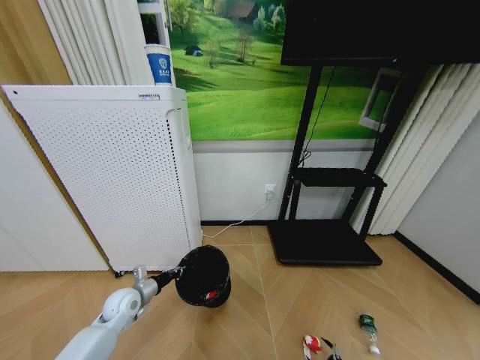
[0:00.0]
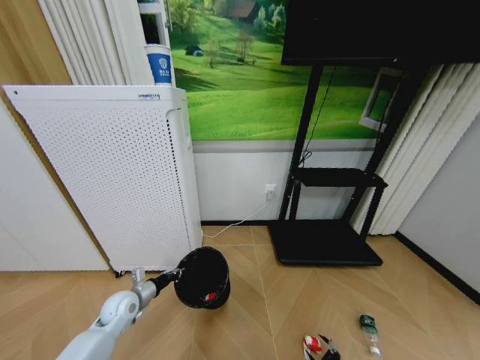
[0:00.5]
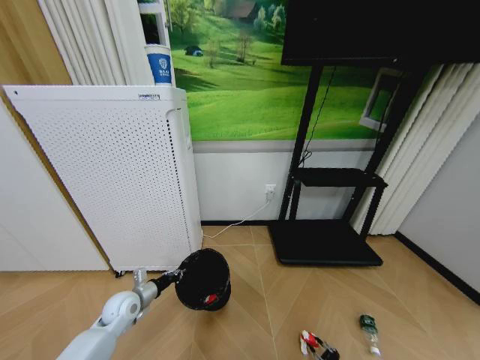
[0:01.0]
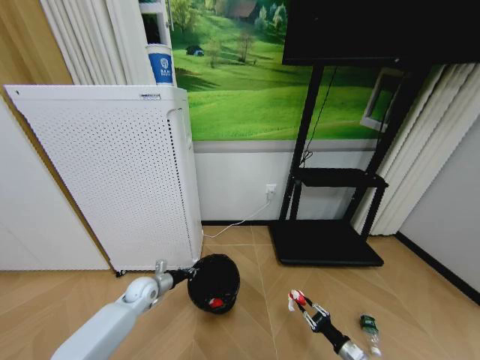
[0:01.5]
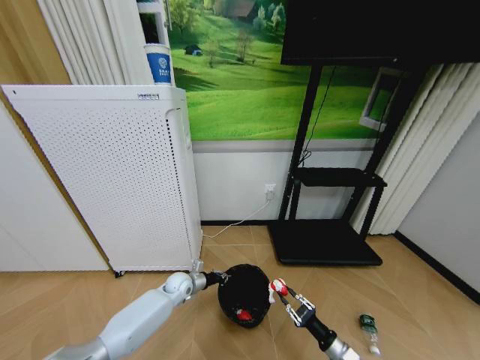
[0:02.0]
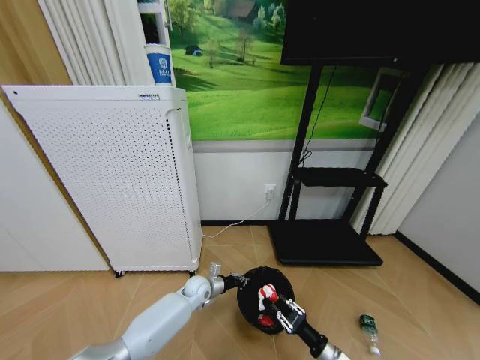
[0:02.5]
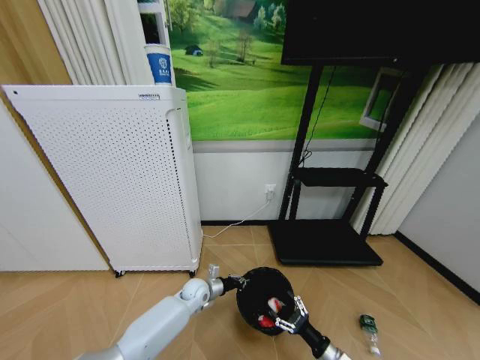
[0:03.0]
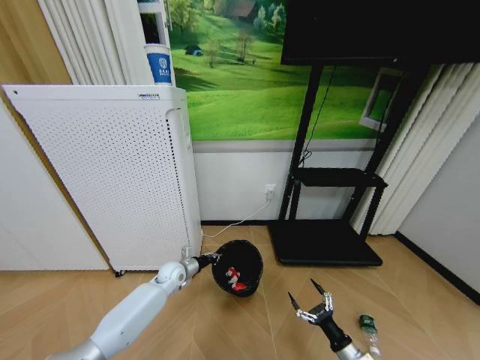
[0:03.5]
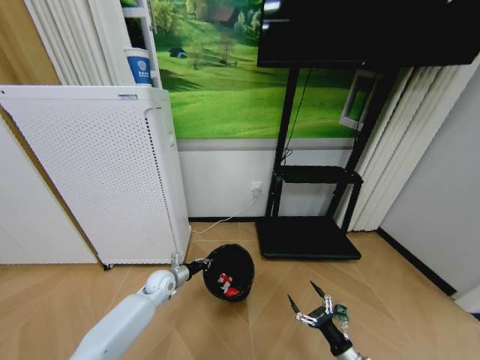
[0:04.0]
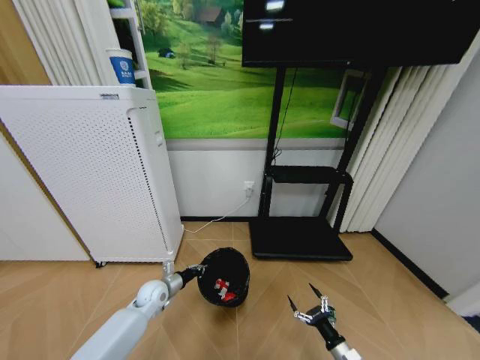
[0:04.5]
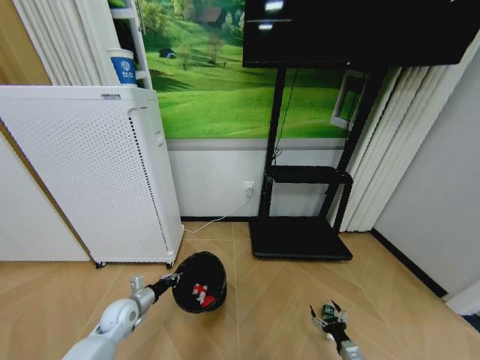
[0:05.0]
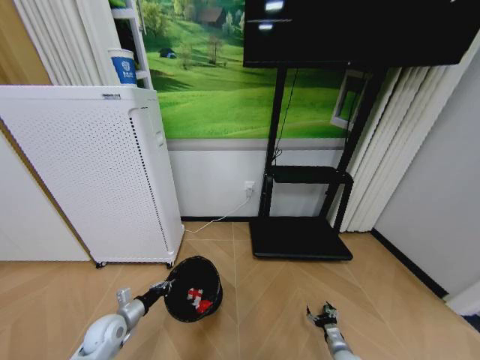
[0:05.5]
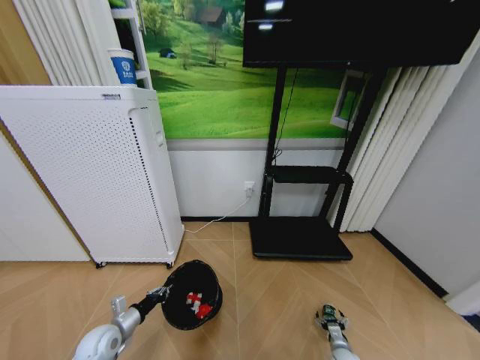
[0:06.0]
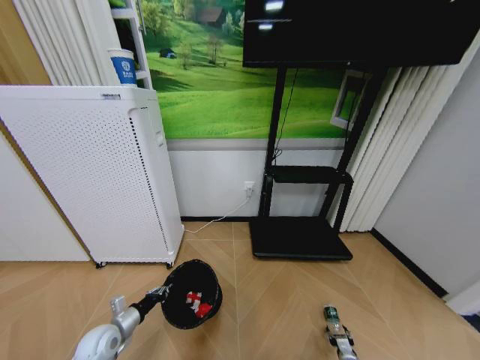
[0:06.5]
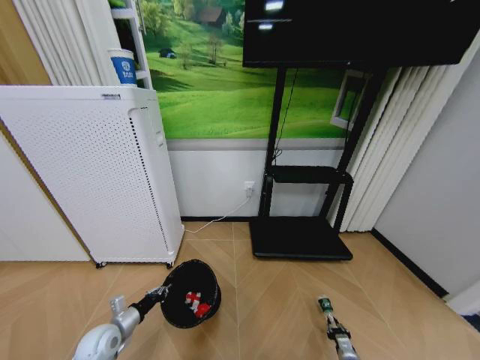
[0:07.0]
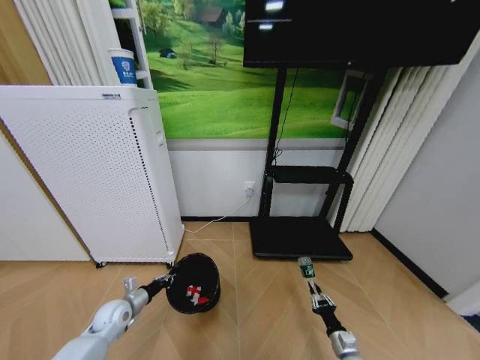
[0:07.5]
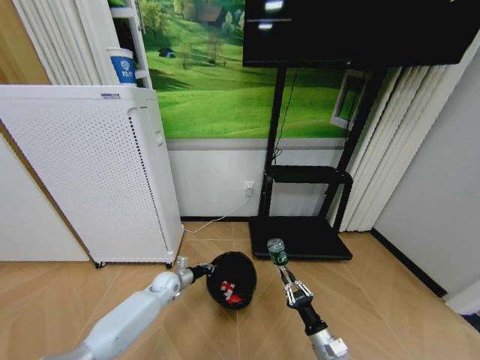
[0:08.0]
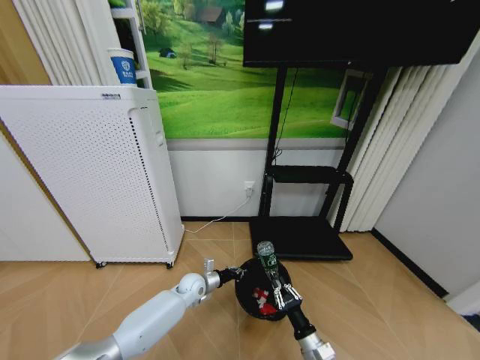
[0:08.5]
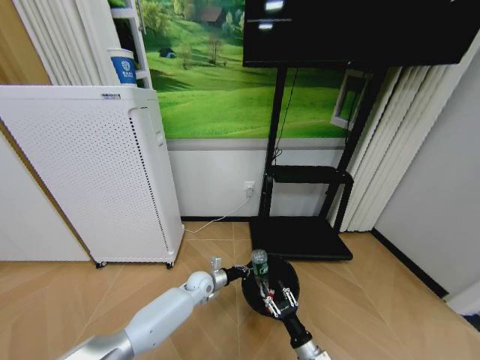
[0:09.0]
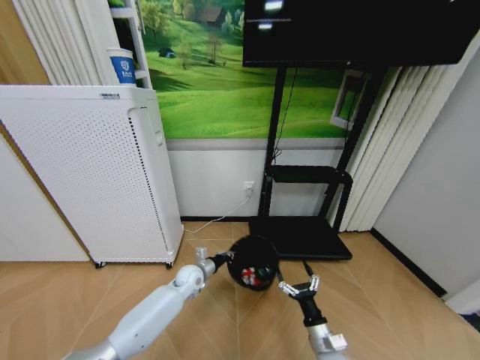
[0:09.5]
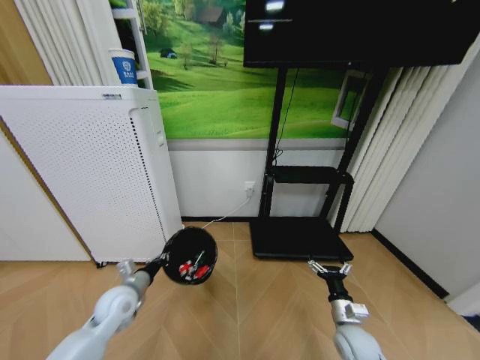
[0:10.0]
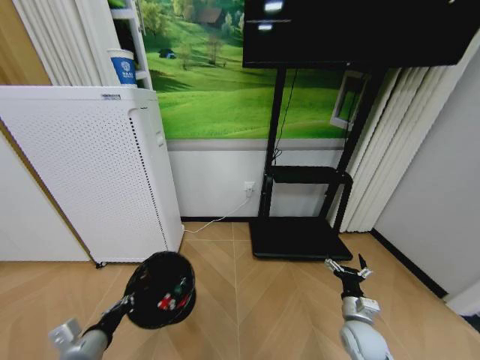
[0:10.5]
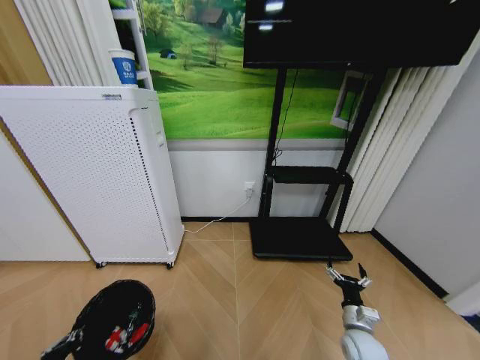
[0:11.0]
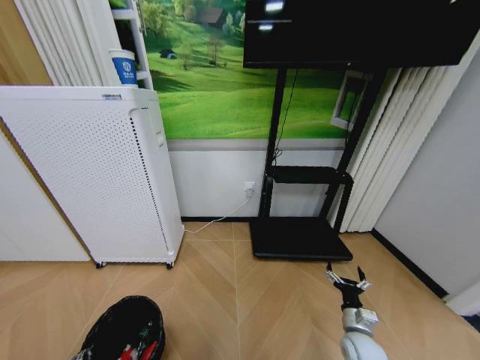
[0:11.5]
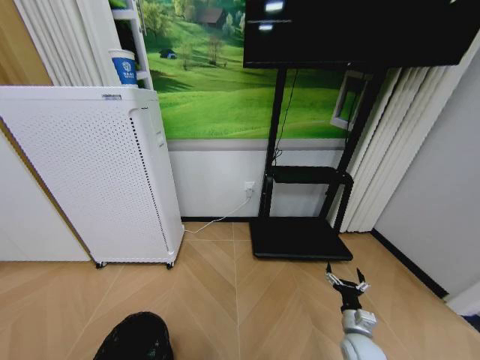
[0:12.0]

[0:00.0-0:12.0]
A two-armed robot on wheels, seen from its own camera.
Task of the whole recording: Pick up the trash bin and place the garbage on the floor into it.
0:00.0 to 0:02.0: The right gripper is displaced upward, to the left and forward by approximately 20 cm, and closes up. The left gripper is displaced to the right, forward and downward by about 20 cm.
0:02.0 to 0:04.0: The right gripper opens, while the left gripper travels to the left by some 5 cm.
0:04.0 to 0:06.0: The left gripper travels backward and to the left by approximately 20 cm. Meanwhile the right gripper moves downward and forward, some 15 cm.
0:06.0 to 0:08.0: The left gripper moves forward and to the right, some 20 cm, while the right gripper shifts approximately 20 cm upward and to the left, and closes up.
0:08.0 to 0:10.0: The left gripper moves backward, upward and to the left, about 20 cm, while the right gripper moves forward and to the right, roughly 10 cm, and opens.
0:10.0 to 0:12.0: The left gripper goes approximately 25 cm backward. The right gripper changes place by approximately 5 cm.

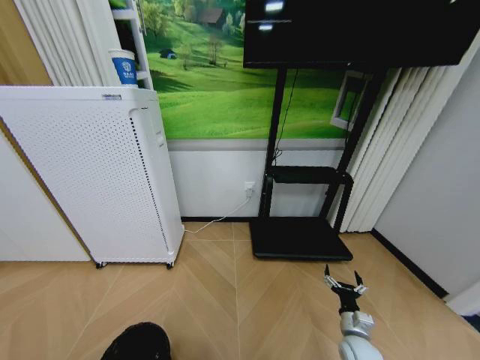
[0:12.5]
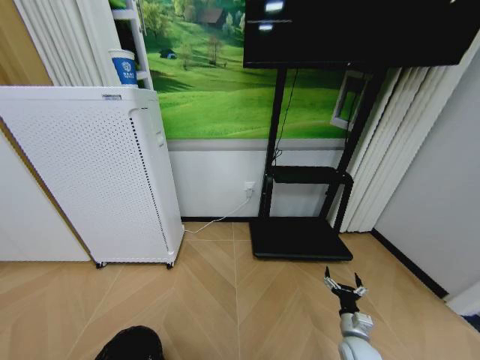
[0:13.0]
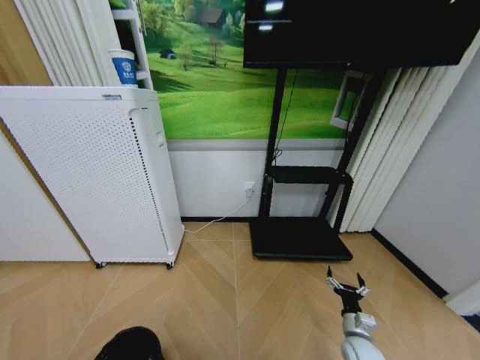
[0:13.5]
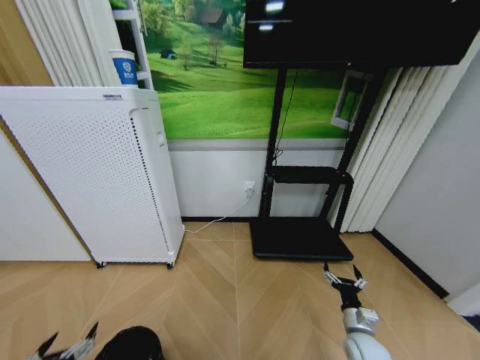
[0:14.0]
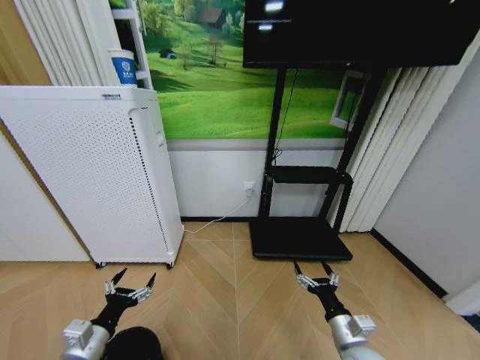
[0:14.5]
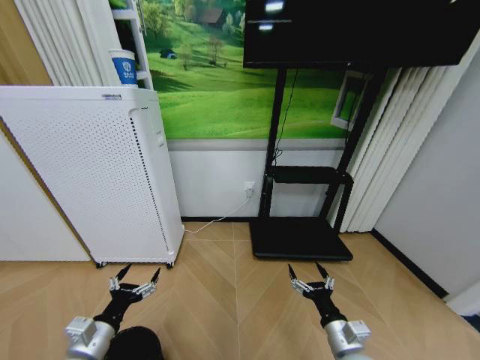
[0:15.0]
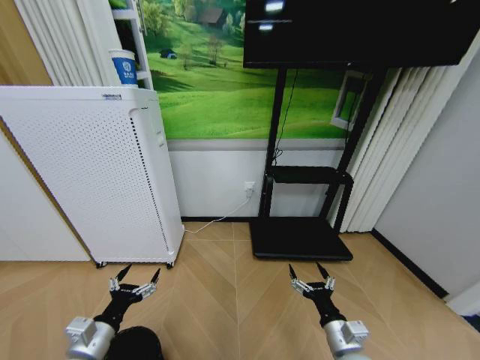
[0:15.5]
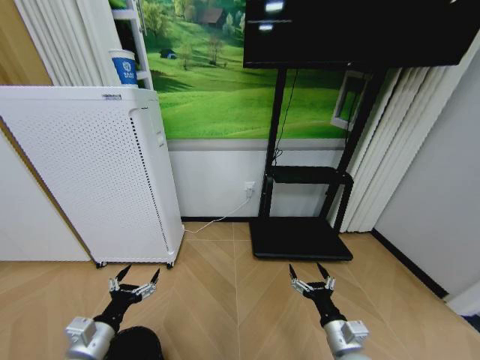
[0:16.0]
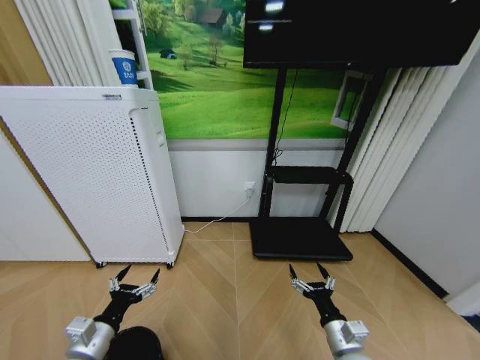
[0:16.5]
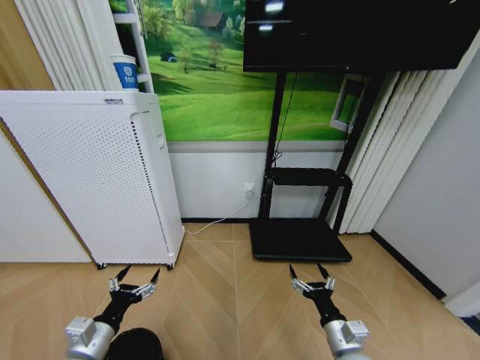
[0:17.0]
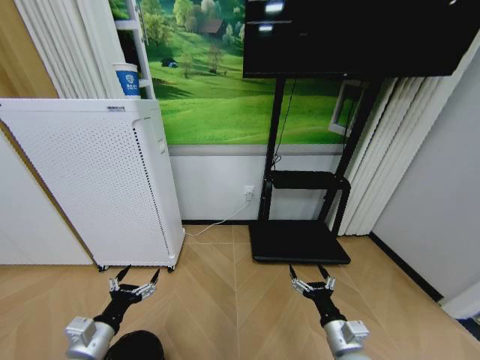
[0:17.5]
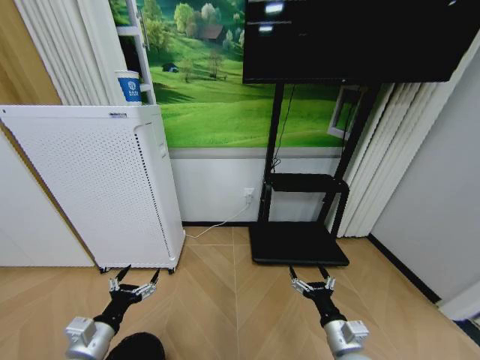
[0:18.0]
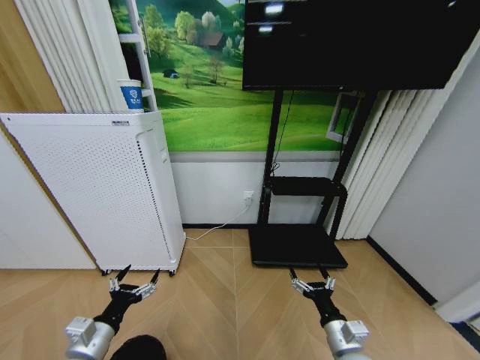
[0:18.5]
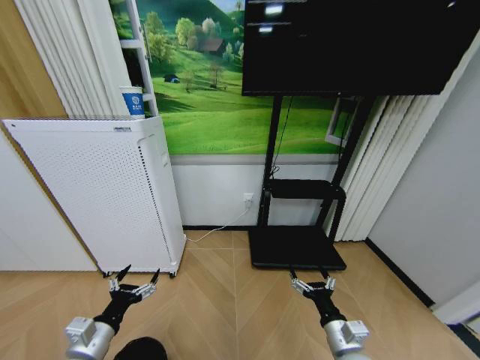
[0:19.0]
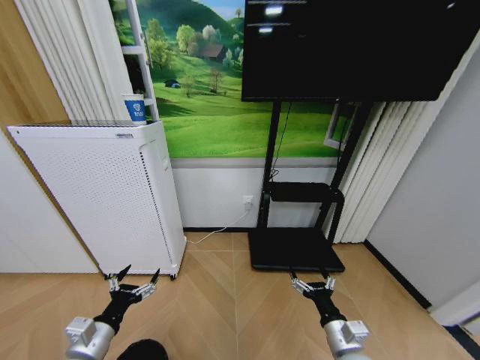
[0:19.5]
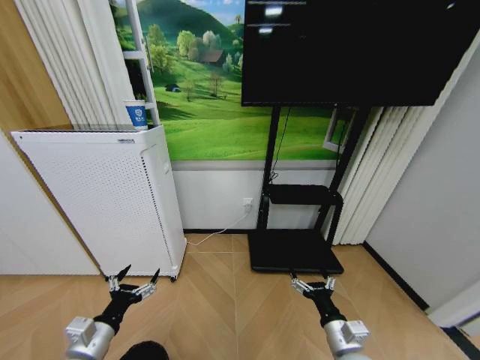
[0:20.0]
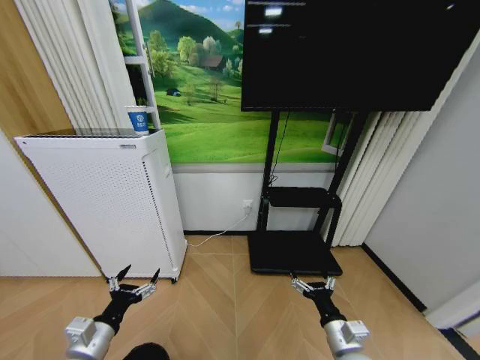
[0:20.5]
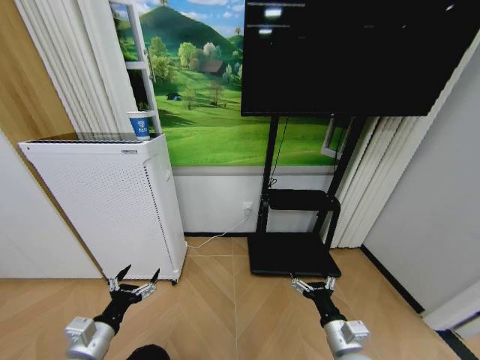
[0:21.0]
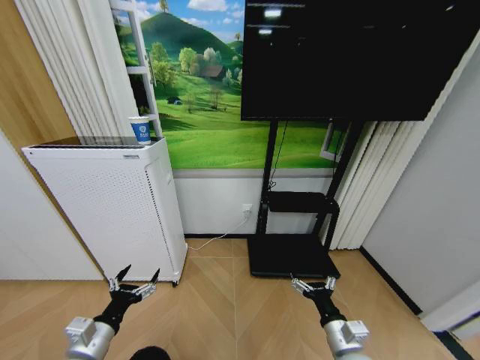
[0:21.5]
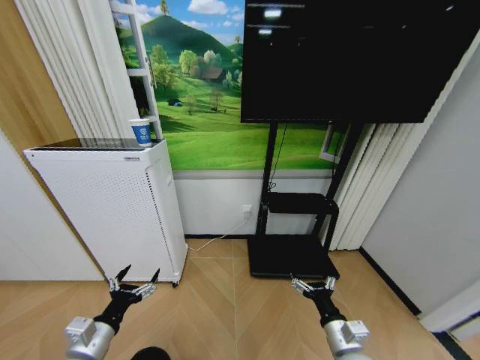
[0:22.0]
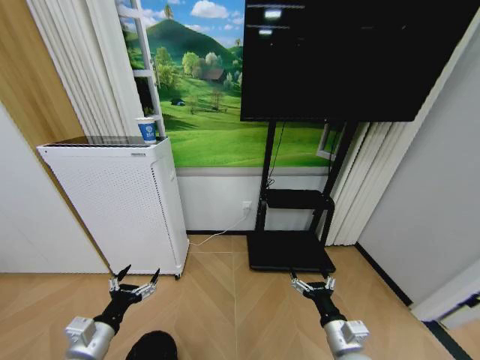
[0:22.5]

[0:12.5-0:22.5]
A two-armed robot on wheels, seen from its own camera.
Task of the whole recording: Pick up the trash bin and place the garbage on the floor into it.
0:12.5 to 0:14.5: The right gripper moves upward, to the left and backward, approximately 15 cm. The left gripper is displaced forward, upward and to the right by roughly 20 cm, and opens up.
0:14.5 to 0:16.5: The grippers stay close to where they were, moving slightly.
0:16.5 to 0:20.5: Both grippers stay about where they are.

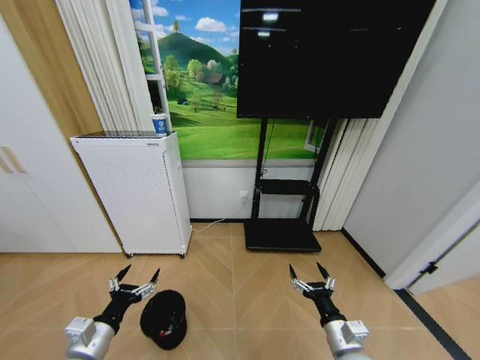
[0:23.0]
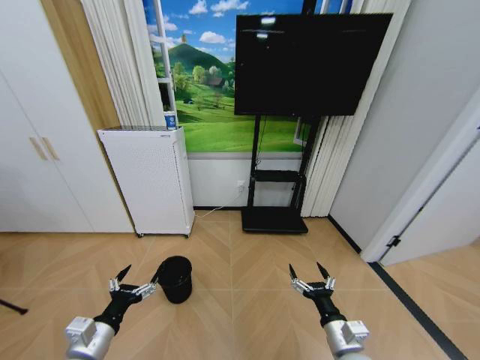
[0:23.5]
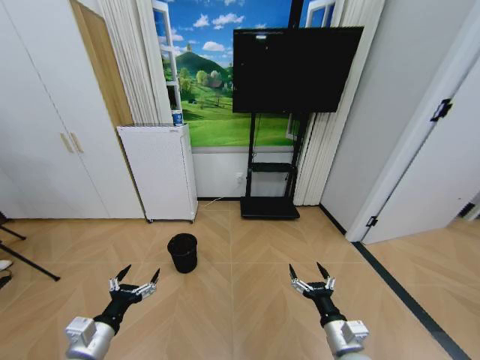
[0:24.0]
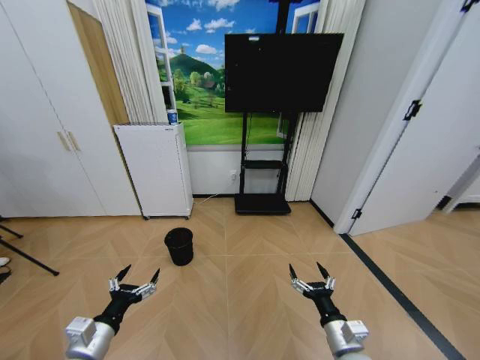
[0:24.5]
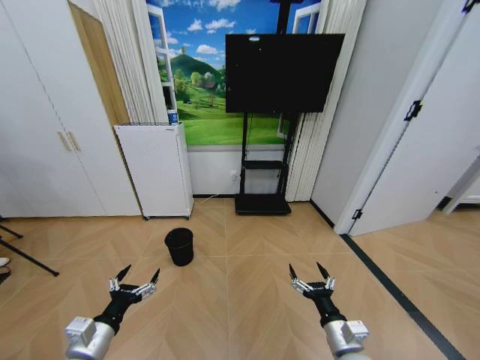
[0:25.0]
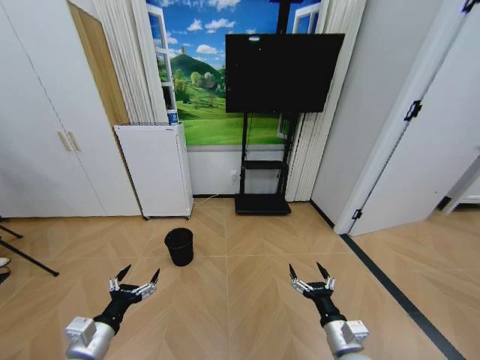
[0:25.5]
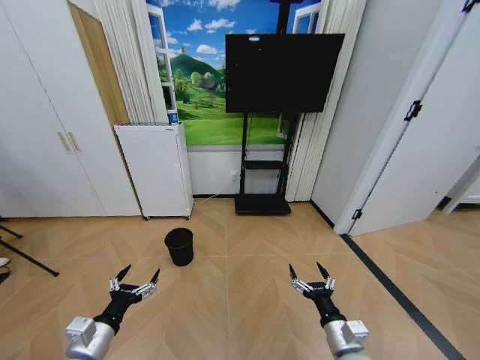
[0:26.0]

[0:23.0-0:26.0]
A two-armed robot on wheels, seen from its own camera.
Task of the whole recording: Pick up the trash bin and place the garbage on the floor into it.
0:24.5 to 0:26.0: The two grippers keep their place.
